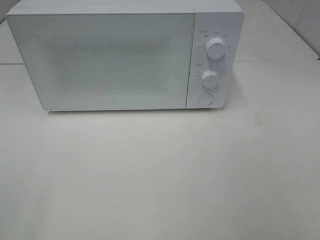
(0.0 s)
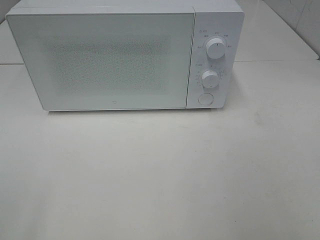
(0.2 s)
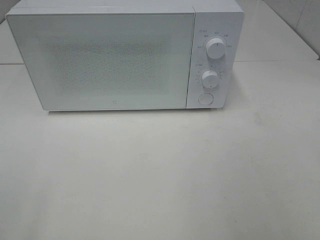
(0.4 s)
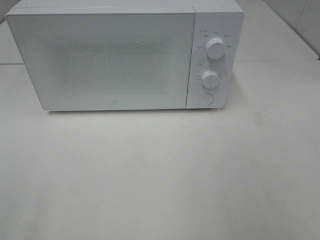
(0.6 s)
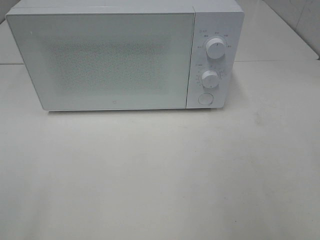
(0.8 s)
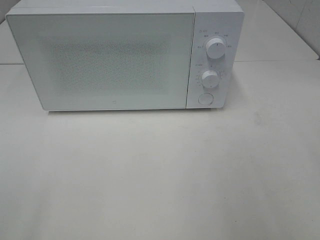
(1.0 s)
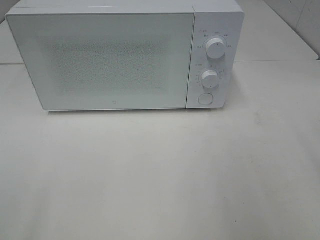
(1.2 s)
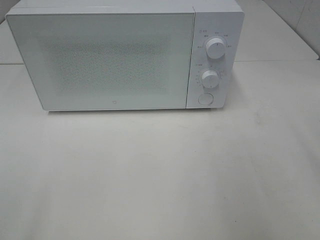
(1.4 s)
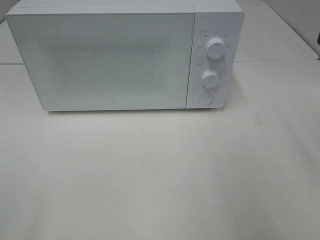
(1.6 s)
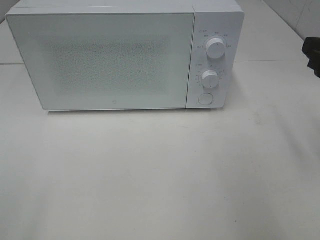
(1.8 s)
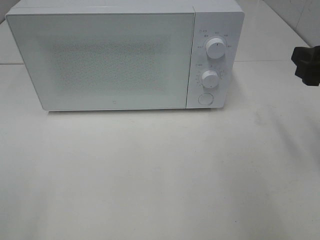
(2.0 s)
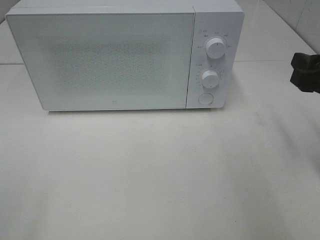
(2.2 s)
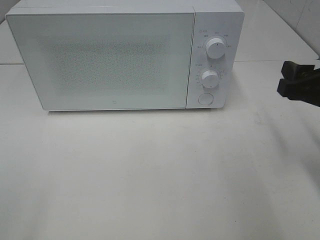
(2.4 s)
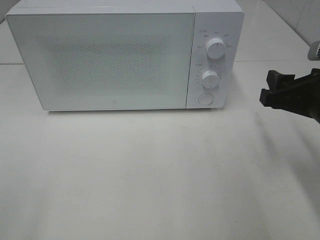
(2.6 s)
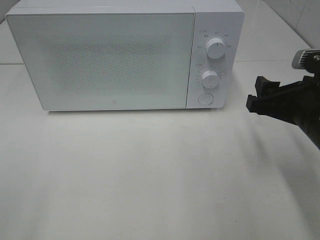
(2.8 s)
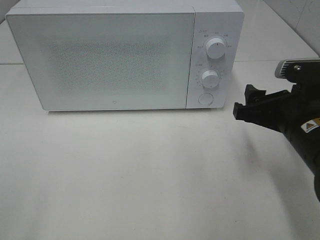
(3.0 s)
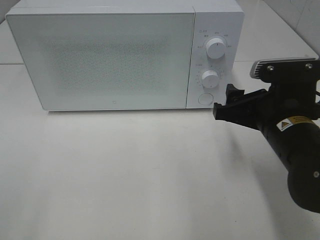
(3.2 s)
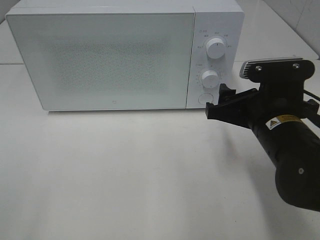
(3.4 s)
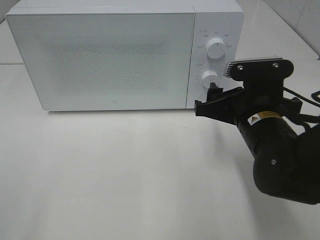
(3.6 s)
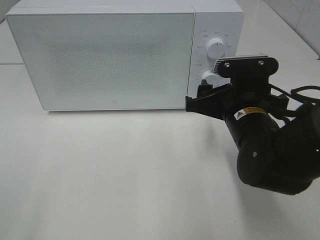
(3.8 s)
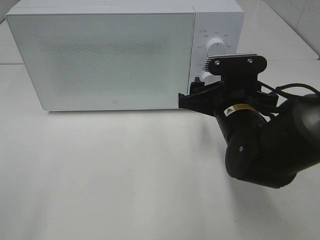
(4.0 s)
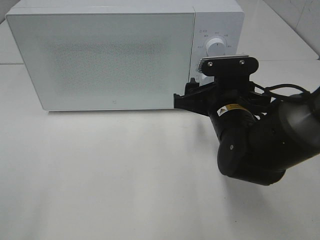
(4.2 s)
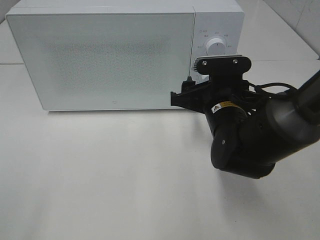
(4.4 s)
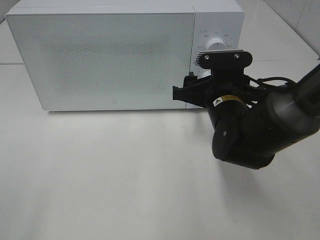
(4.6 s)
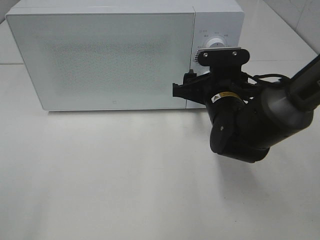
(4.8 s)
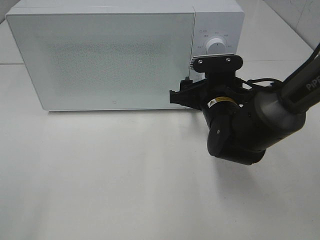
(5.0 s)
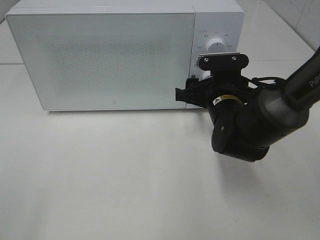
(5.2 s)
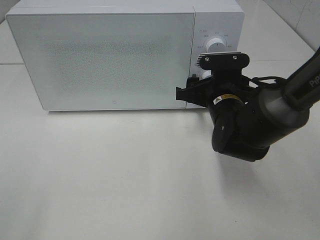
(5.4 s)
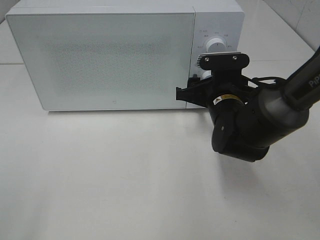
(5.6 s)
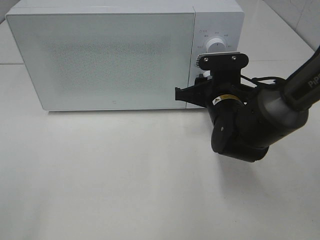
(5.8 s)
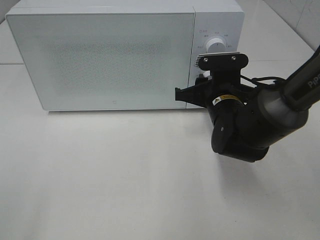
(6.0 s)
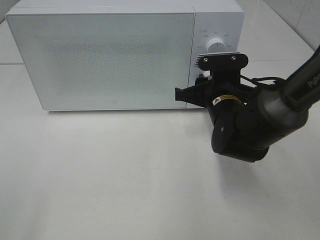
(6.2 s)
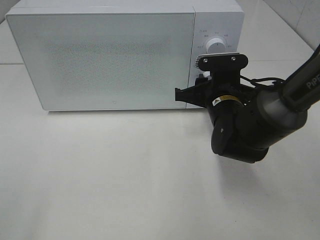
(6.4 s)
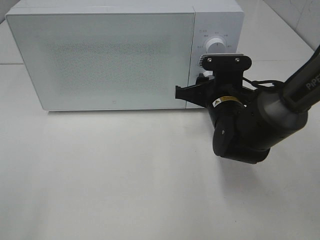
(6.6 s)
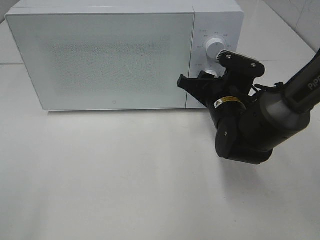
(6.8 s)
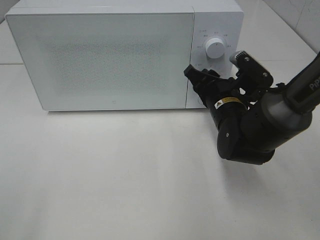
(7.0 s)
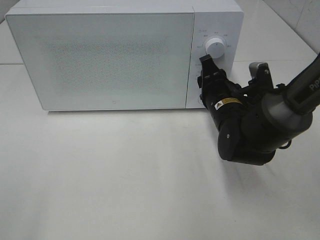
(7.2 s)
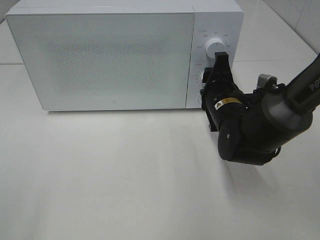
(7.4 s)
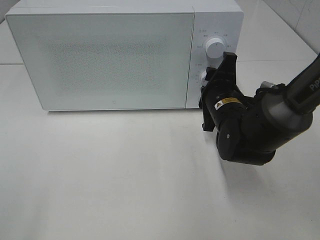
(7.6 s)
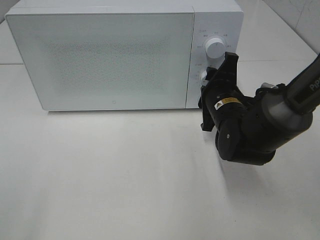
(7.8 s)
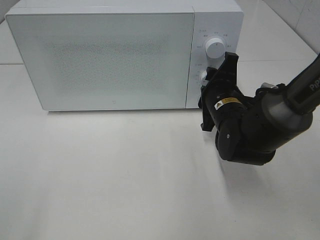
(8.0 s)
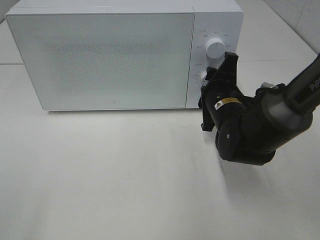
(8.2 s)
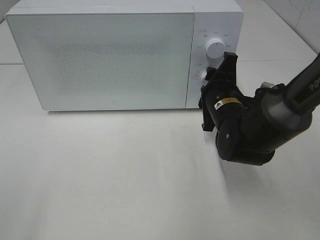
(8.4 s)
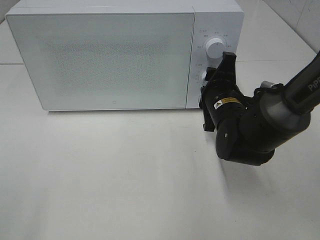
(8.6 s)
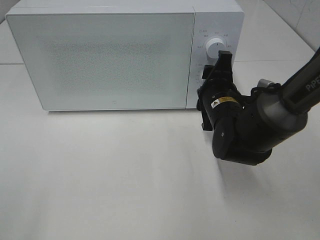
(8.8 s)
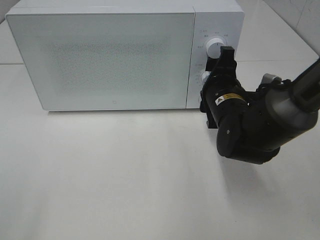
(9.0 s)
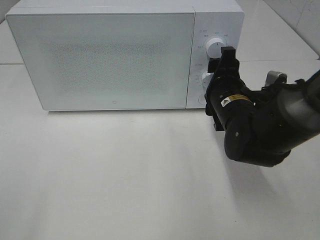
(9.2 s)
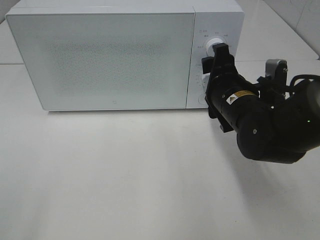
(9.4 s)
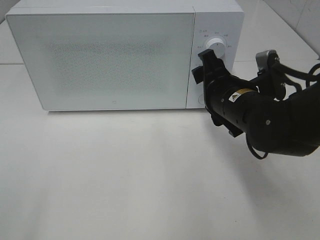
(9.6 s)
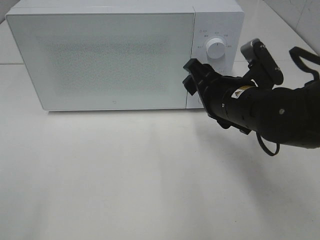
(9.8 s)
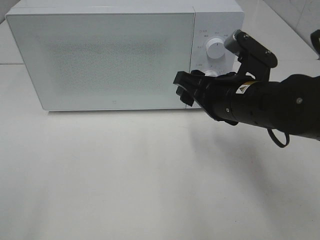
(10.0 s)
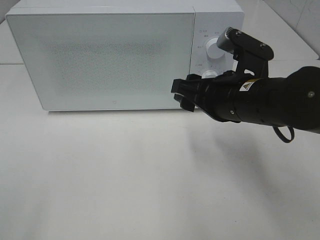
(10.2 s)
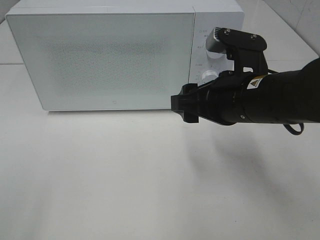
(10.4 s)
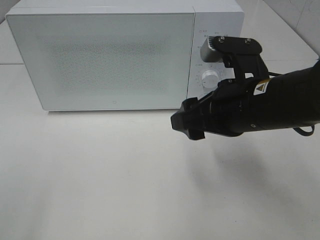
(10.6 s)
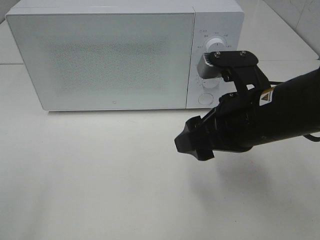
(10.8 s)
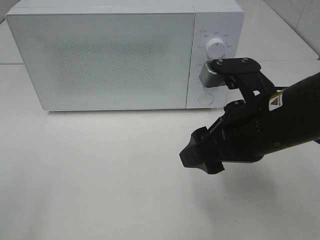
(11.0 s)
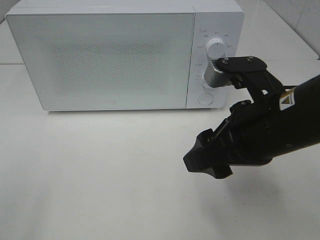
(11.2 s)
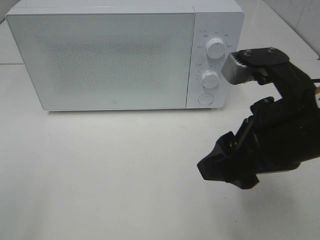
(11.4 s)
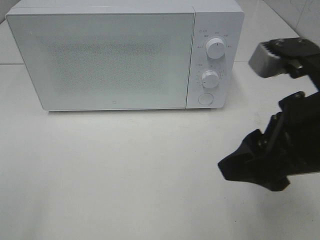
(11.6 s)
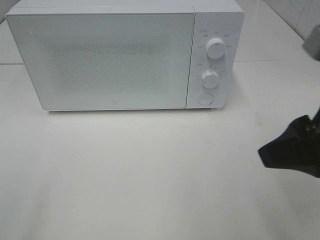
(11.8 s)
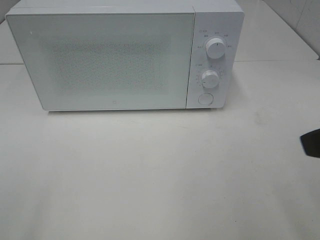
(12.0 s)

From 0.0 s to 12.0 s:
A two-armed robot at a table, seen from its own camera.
Task of the whole recording: Heat the burger.
Step, from 0.0 s to 9.0 s: Right hand: twist timer button.
From 1.6 s to 3.0 s: The right gripper shifts some 15 cm downward and to the left.
From 3.0 s to 4.4 s: The right gripper travels to the left and forward by roughly 10 cm.
From 4.4 s to 6.0 s: The right gripper closes.
From 7.6 s to 9.0 s: The grippers make only small movements.
From 9.0 s to 10.4 s: The right gripper goes some 10 cm upward and backward.
From 10.4 s to 12.0 s: The right gripper travels backward, to the right and upward by some 20 cm.

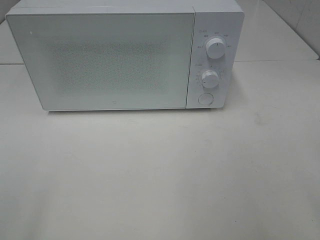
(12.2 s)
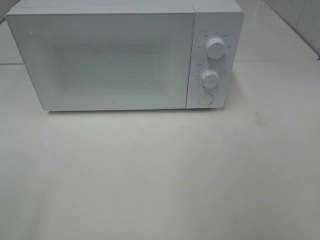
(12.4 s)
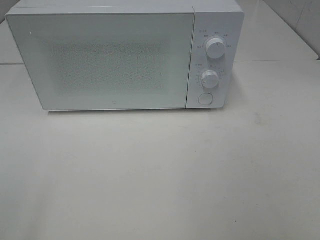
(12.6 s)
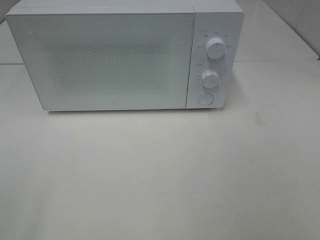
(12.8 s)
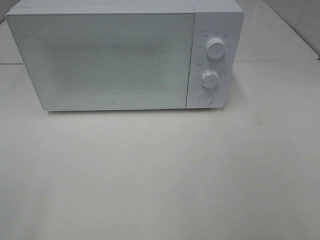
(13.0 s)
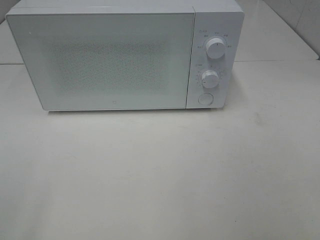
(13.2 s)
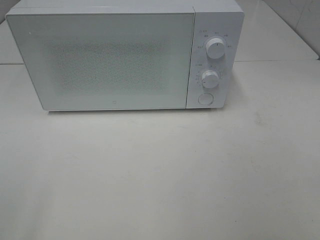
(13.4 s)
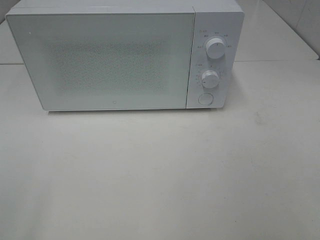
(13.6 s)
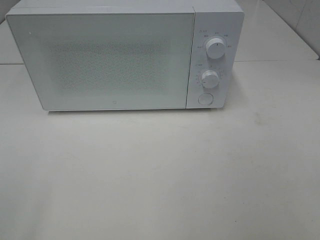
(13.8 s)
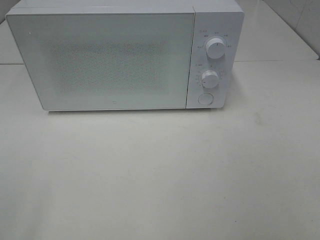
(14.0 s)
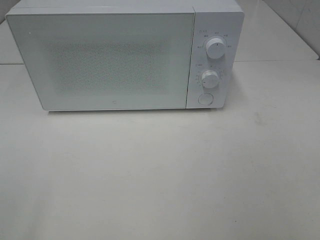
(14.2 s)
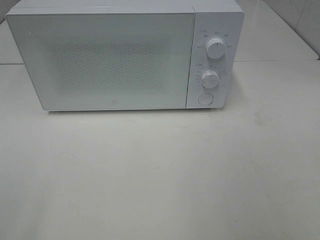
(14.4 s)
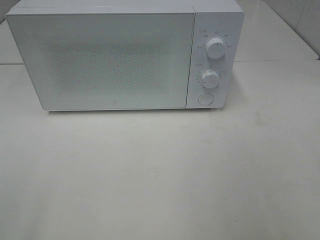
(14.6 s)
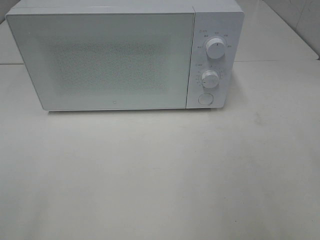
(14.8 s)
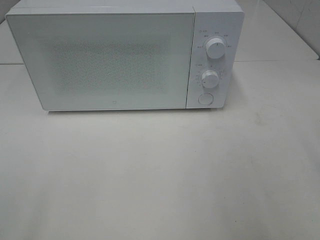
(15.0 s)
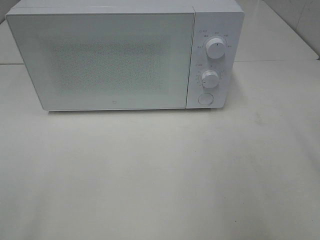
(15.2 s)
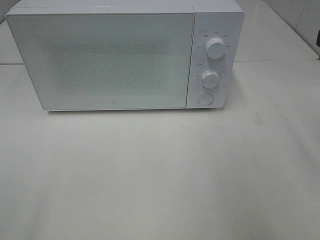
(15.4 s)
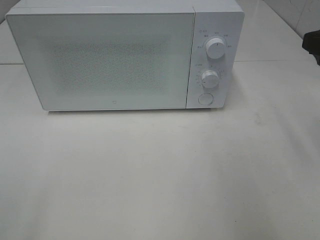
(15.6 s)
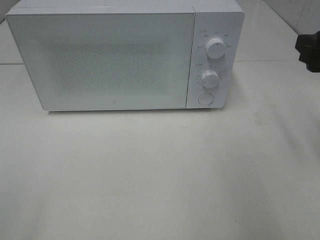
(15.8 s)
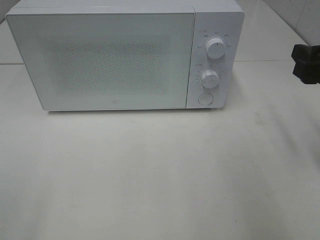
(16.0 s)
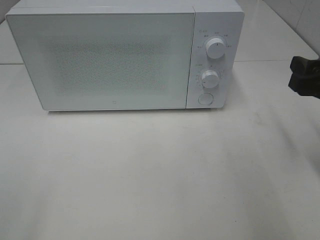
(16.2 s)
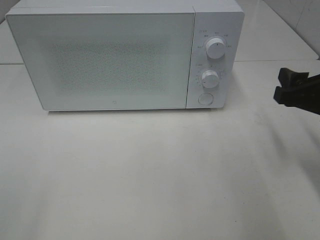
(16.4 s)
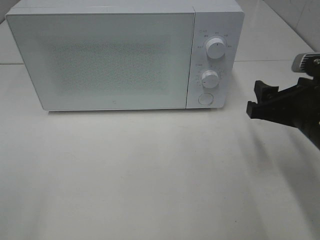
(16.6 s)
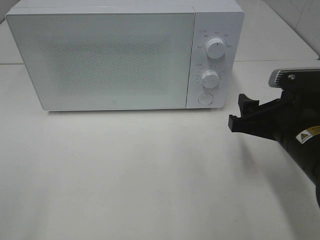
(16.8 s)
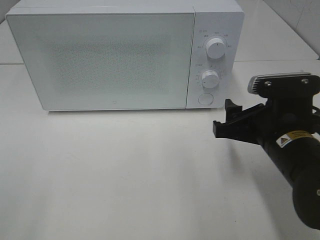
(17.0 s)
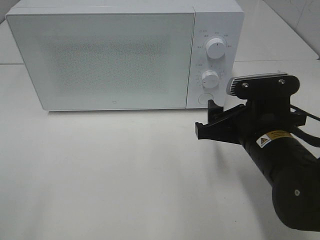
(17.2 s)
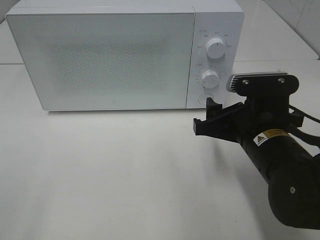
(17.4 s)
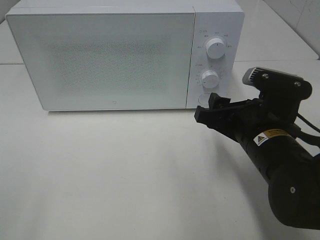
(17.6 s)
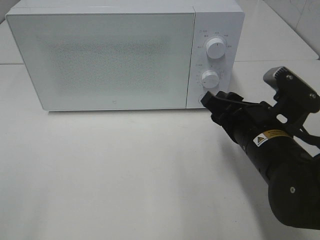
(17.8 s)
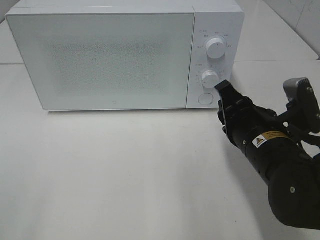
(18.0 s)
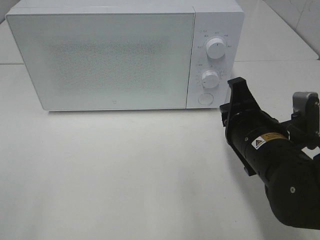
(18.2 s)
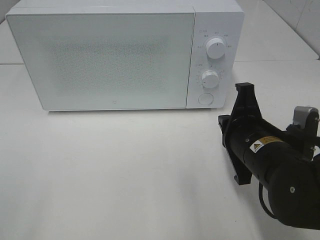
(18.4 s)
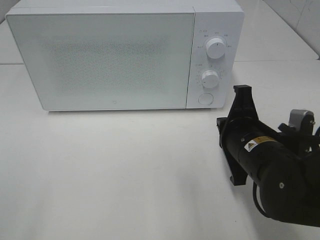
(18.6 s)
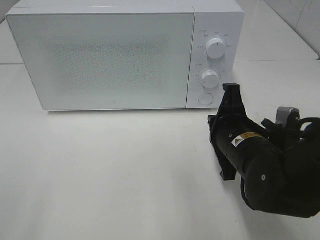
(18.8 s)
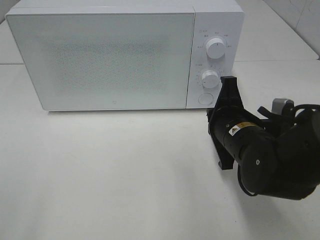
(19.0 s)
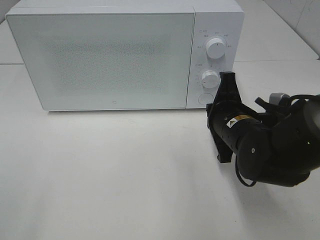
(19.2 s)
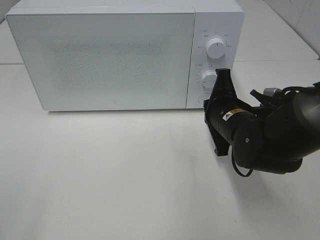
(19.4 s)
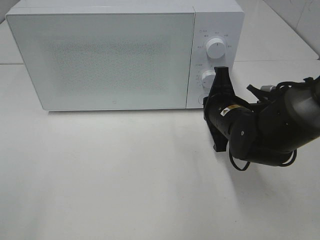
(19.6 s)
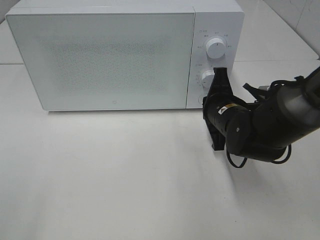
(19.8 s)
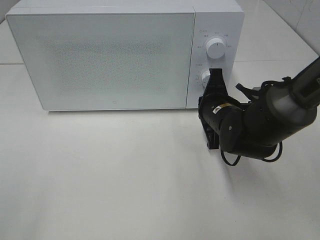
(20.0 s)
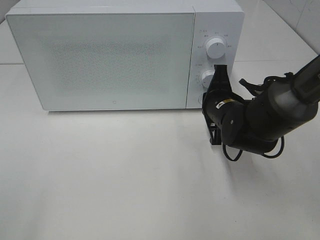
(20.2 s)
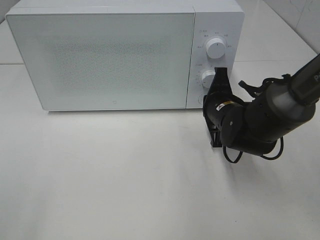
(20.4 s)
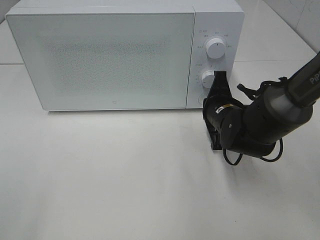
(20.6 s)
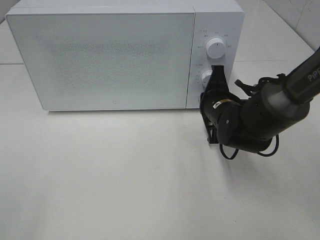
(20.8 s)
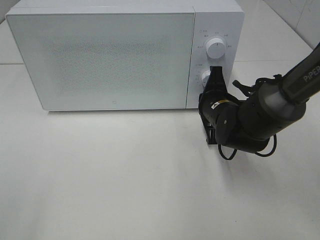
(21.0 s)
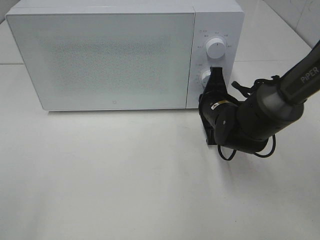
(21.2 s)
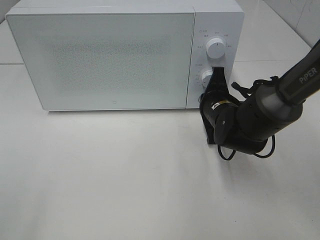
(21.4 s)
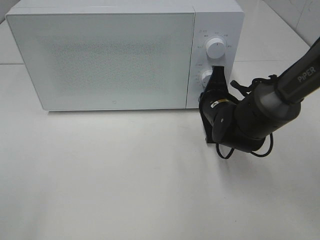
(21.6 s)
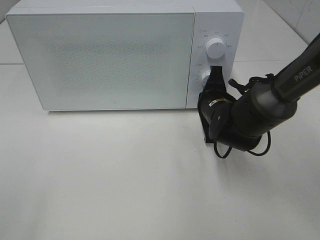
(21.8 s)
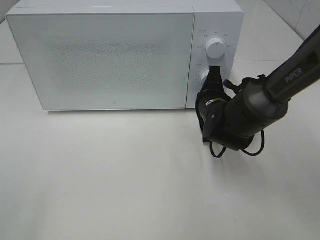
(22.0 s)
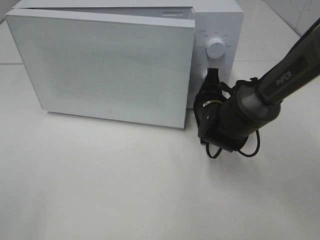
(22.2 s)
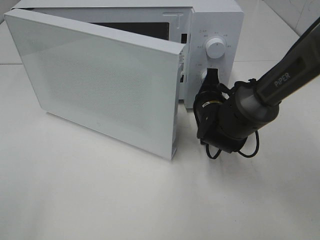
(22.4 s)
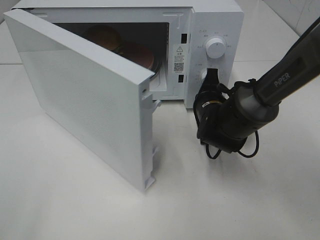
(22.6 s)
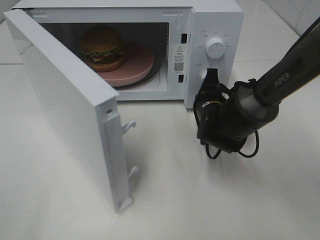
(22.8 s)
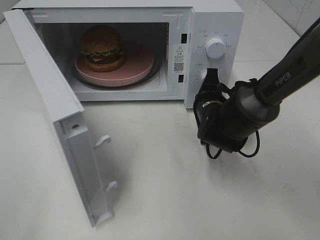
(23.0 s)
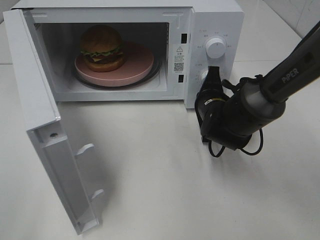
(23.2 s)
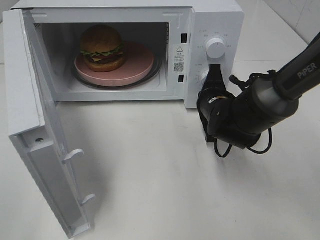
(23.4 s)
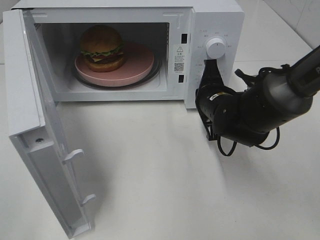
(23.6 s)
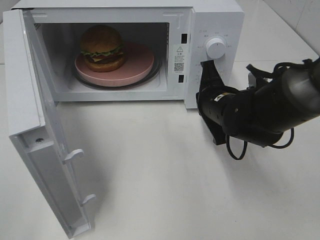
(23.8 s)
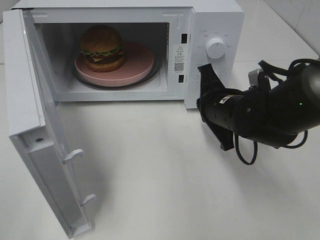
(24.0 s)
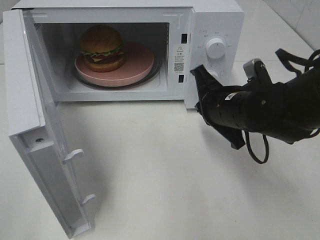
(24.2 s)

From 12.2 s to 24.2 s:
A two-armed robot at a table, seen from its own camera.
Task of the whole recording: Heat the burger.
Step, from 12.2 s to 23.4 s: Right hand: press the switch.
From 15.2 s to 16.6 s: The right gripper travels downward by about 15 cm.
From 16.6 s to 18.2 s: The right gripper goes roughly 10 cm to the left, and closes.
From 18.2 s to 19.8 s: The right gripper heads forward, covering some 10 cm.
From 19.8 s to 21.2 s: The grippers stay close to where they were, moving slightly.
From 22.6 s to 24.2 s: The right gripper travels upward and backward by approximately 10 cm.
